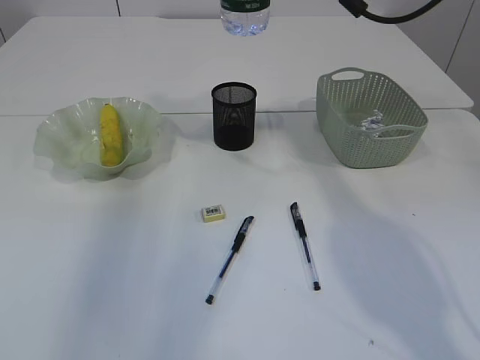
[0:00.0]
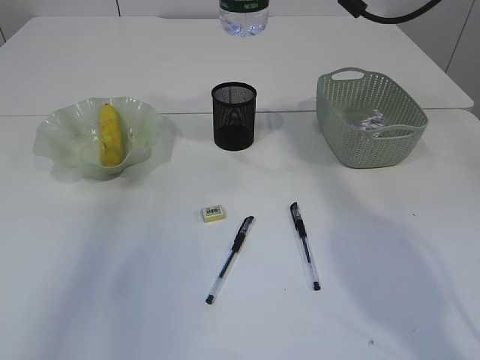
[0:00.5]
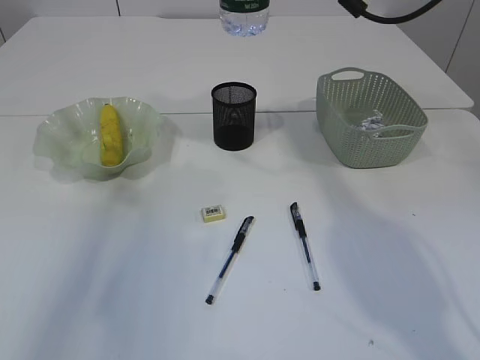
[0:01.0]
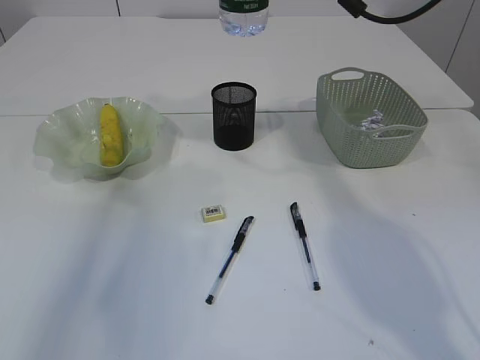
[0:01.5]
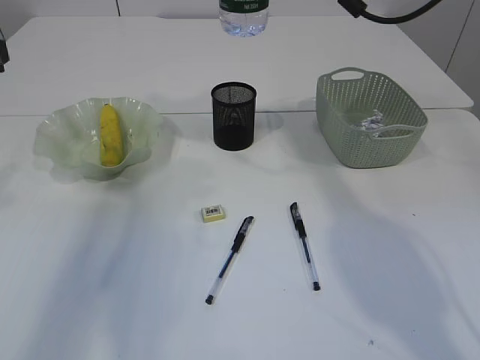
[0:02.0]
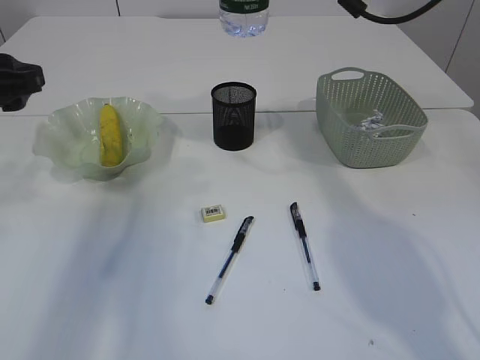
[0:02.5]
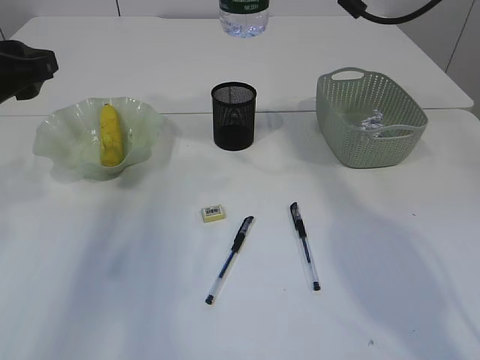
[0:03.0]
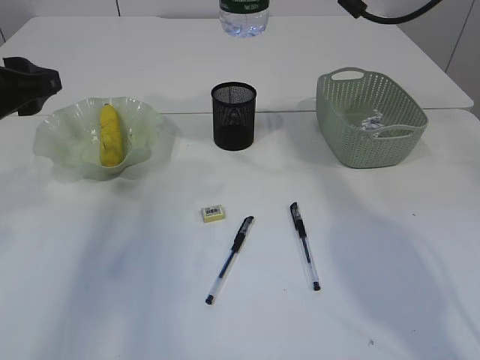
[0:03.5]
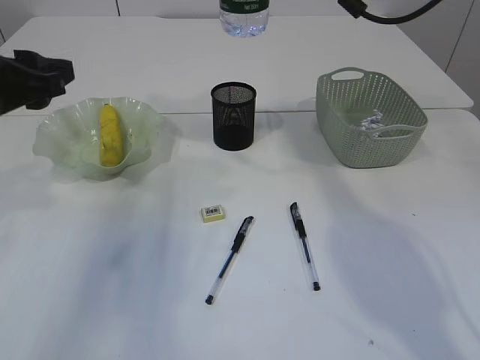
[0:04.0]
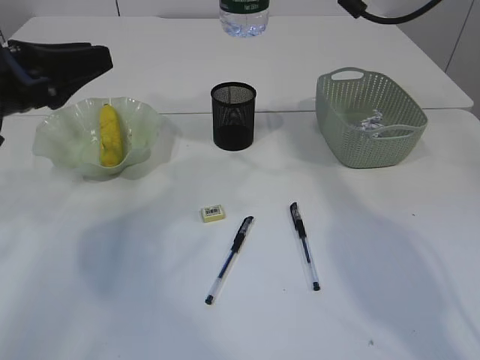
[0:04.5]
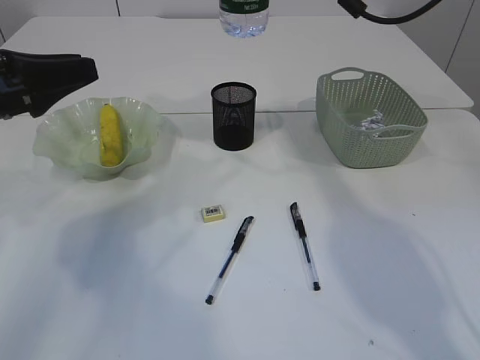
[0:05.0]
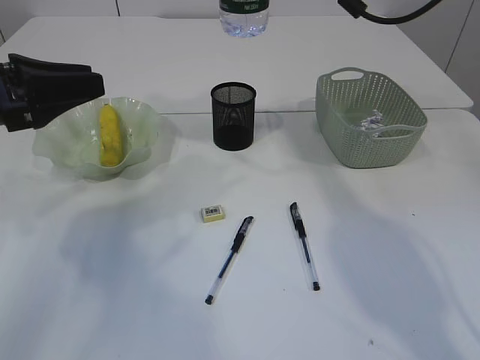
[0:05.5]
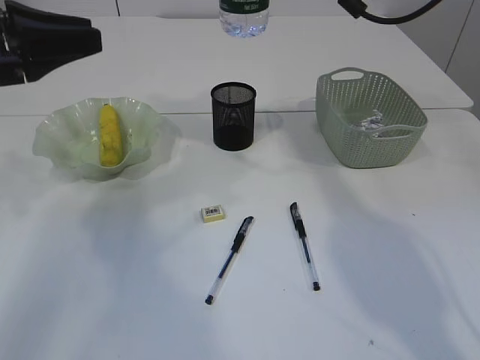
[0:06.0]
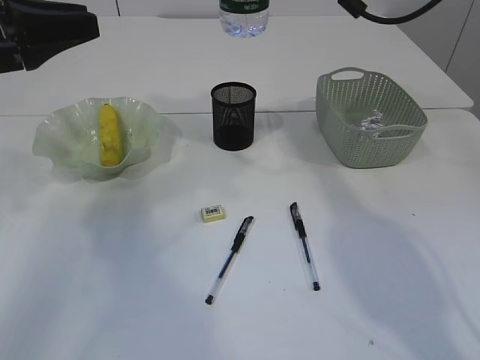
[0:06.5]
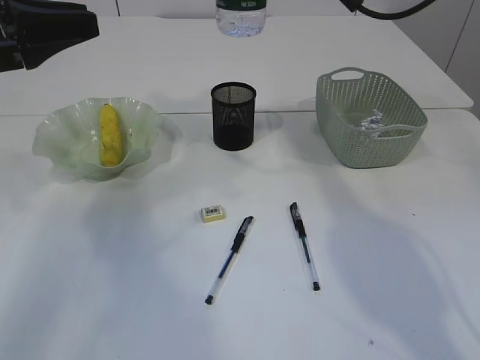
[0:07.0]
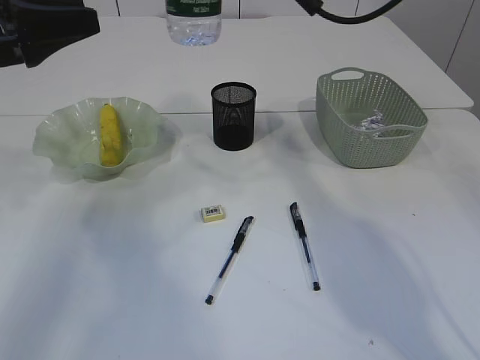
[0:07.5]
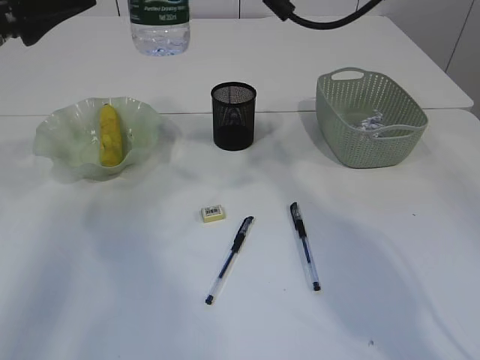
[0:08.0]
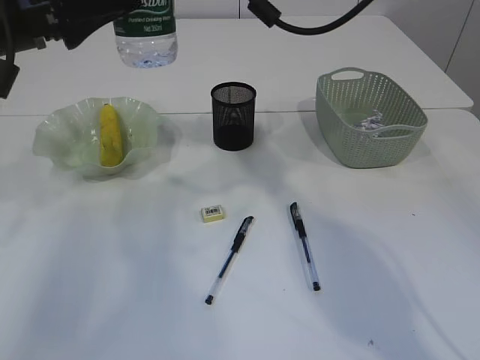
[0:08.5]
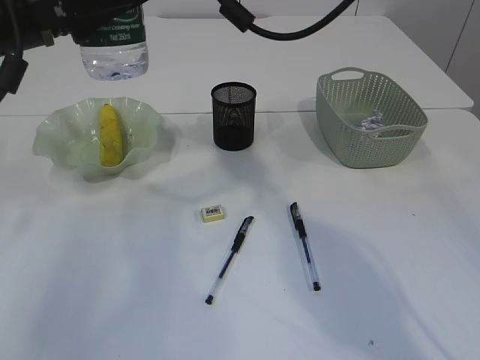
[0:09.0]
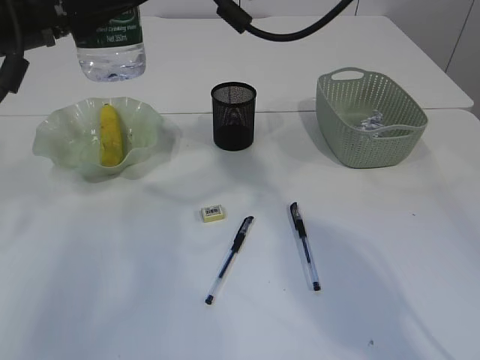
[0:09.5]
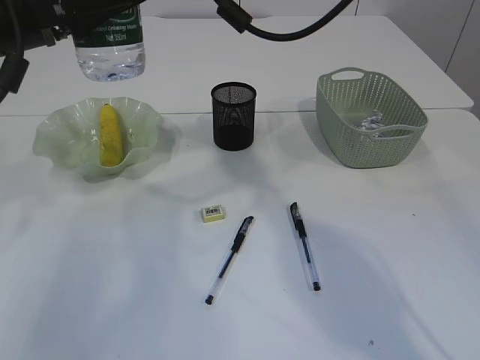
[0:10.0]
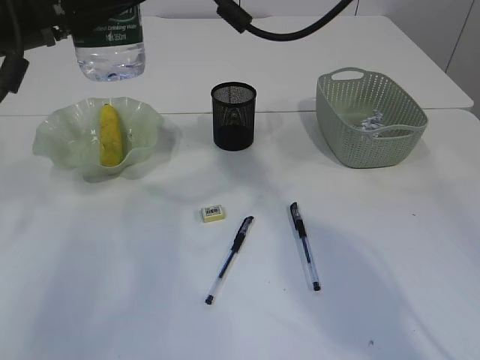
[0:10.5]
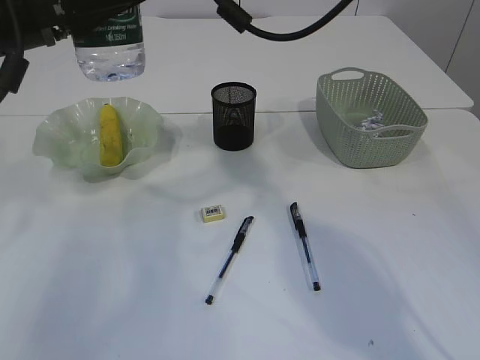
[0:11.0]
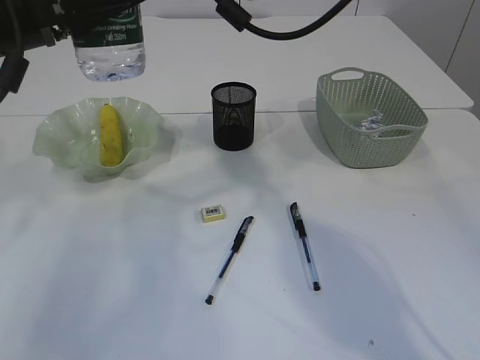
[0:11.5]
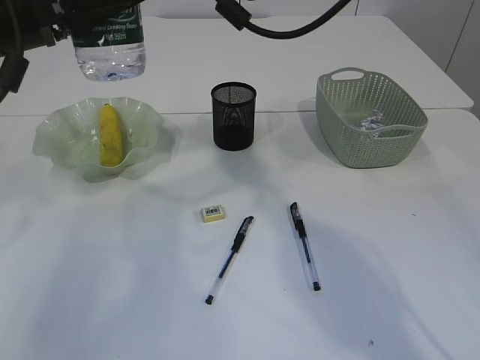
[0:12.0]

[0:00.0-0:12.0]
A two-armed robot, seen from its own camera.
0:02.0 to 0:04.0: The left gripper moves some 5 cm.
0:06.0 to 0:08.0: The right gripper heads to the left, covering about 10 cm; the left gripper opens.
0:08.0 to 0:10.0: The left gripper is displaced to the right by approximately 5 cm. Meanwhile the right gripper changes place by some 5 cm.
0:10.0 to 0:12.0: The two grippers keep their place.

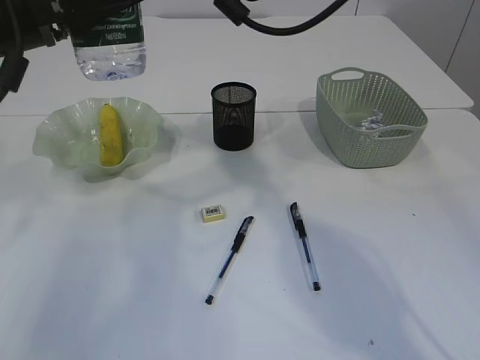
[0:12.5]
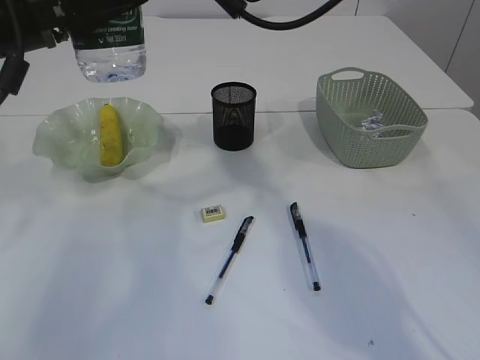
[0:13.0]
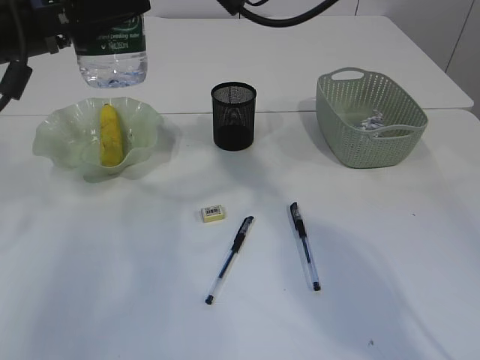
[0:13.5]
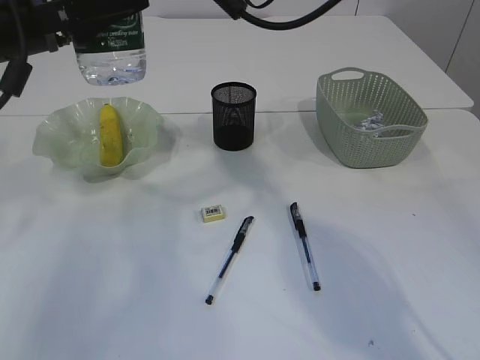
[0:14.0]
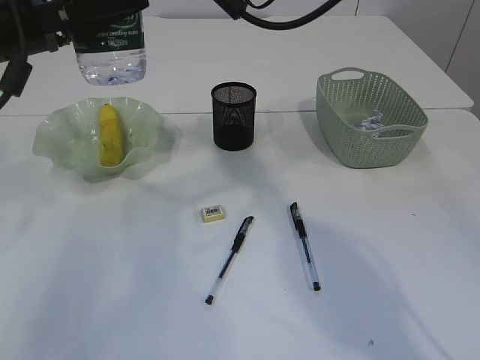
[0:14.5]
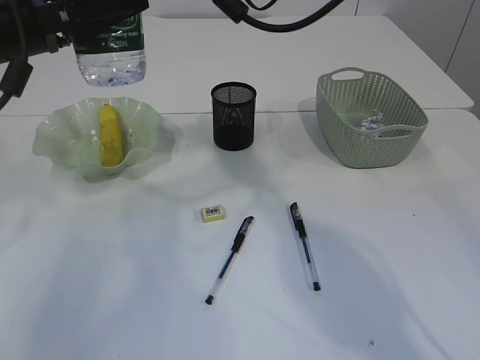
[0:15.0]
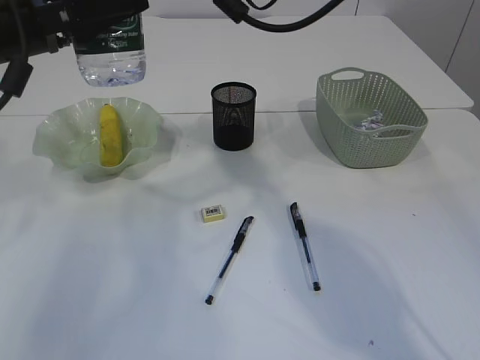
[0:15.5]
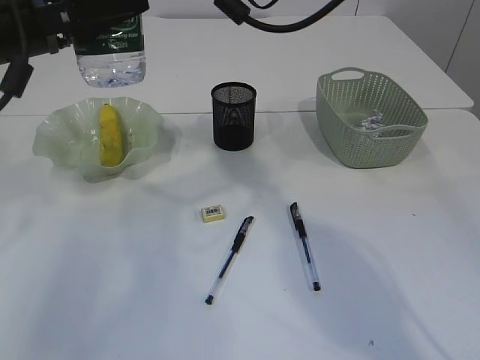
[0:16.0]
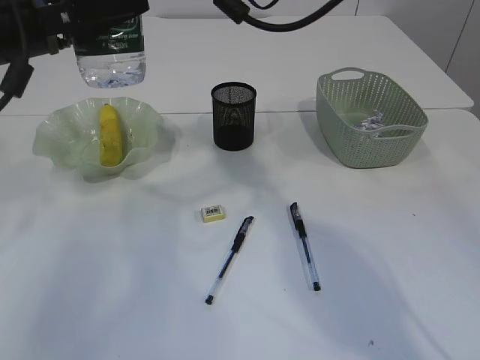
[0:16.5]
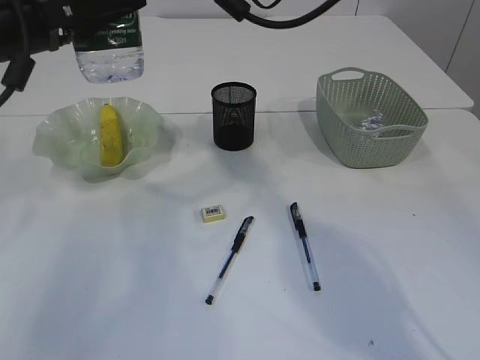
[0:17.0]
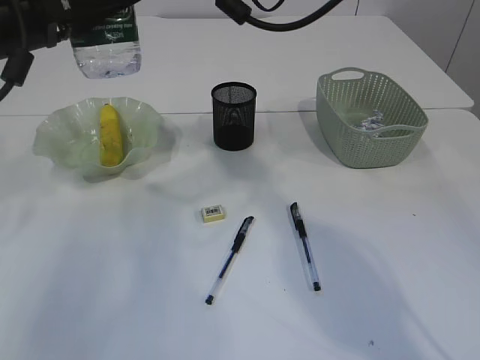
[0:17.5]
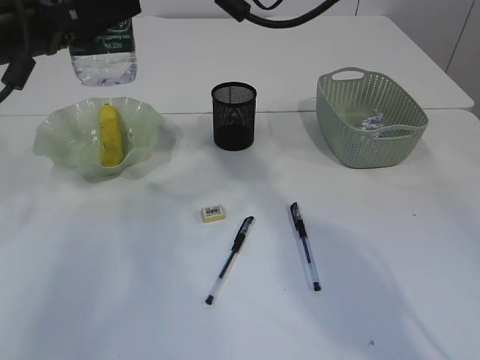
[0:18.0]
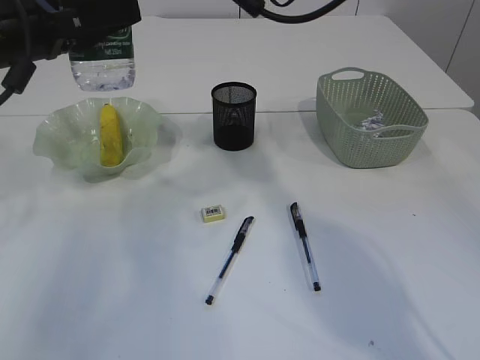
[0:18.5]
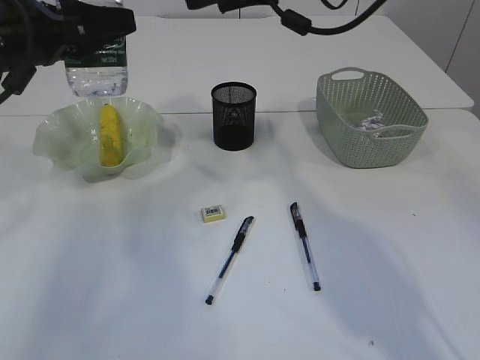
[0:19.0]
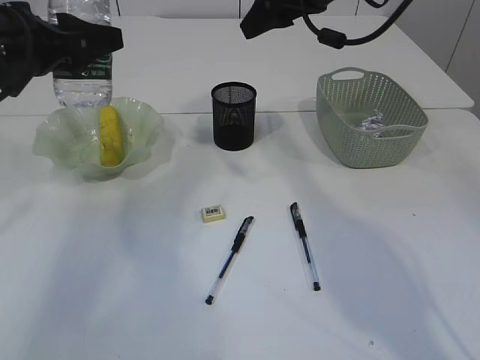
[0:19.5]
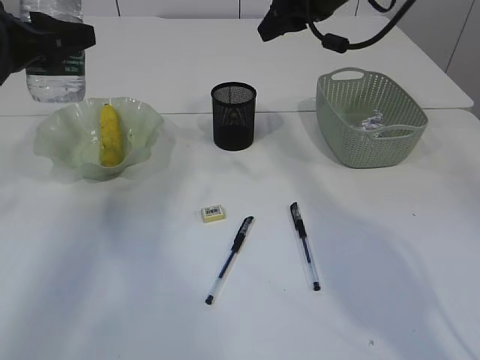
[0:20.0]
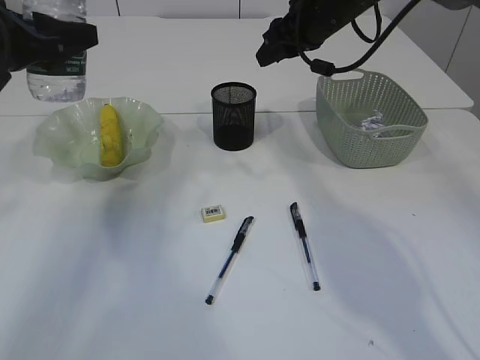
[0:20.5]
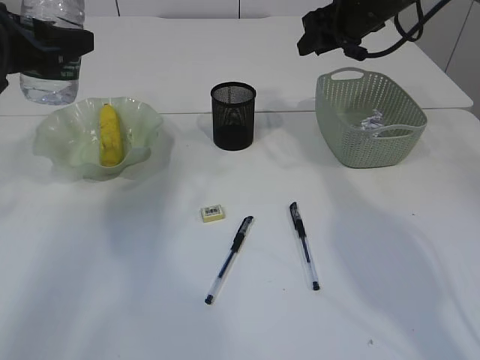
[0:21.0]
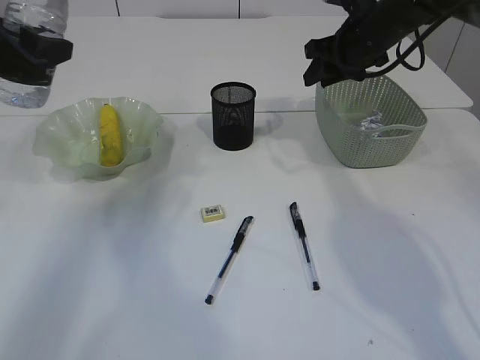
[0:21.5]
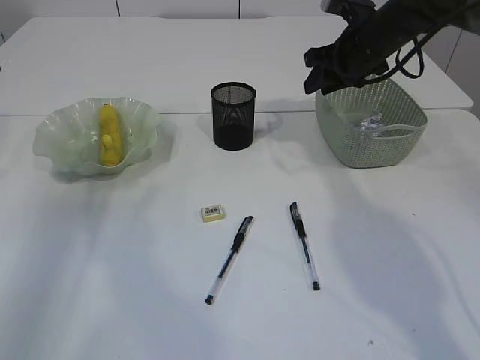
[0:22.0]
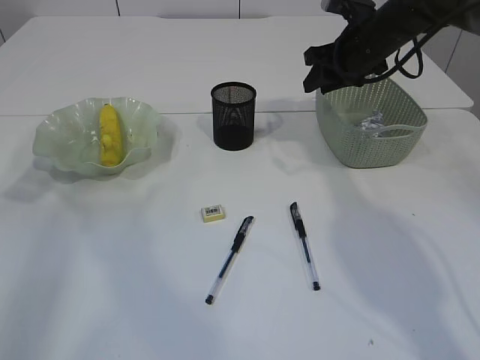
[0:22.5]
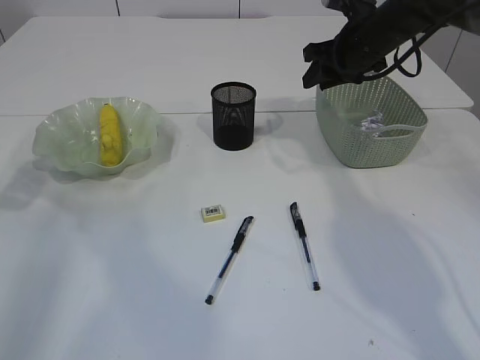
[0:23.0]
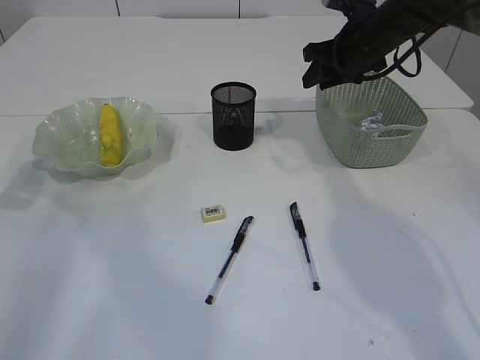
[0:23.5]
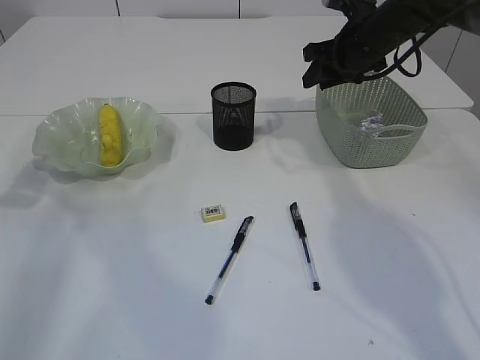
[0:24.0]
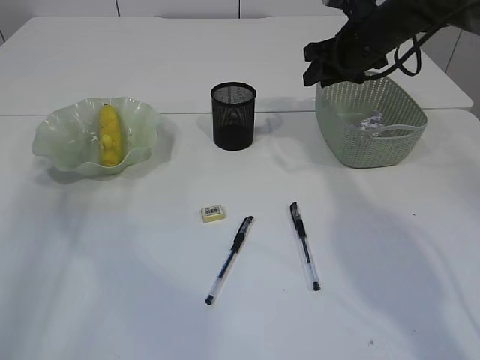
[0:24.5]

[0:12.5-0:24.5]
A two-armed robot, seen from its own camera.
Step, 0:12.5 to 0:18.5: transfer the bottle to the left arm.
0:12.5 to 0:14.5: The grippers move only a little.
0:14.5 to 0:16.5: The two grippers keep their place.
0:16.5 to 0:18.5: The grippers make only small movements.
0:18.5 to 0:20.5: The right gripper shifts roughly 15 cm to the right, downward and forward, and closes.
0:20.5 to 0:22.5: The right gripper heads to the right, covering about 5 cm, while the left gripper shifts approximately 10 cm to the left.
0:22.5 to 0:24.5: The grippers make only small movements.

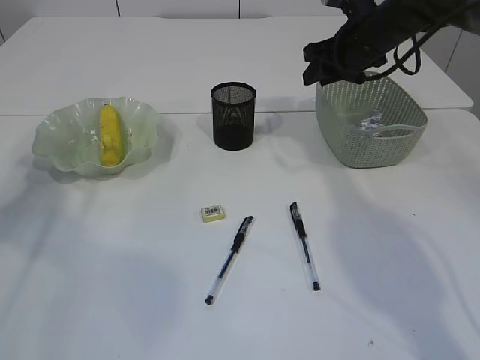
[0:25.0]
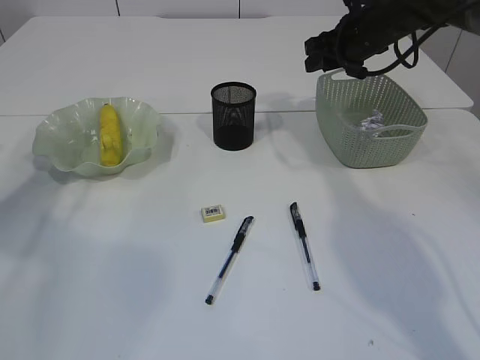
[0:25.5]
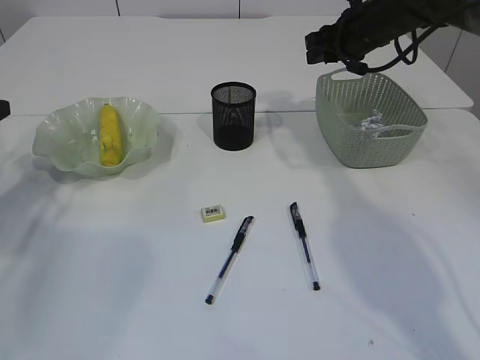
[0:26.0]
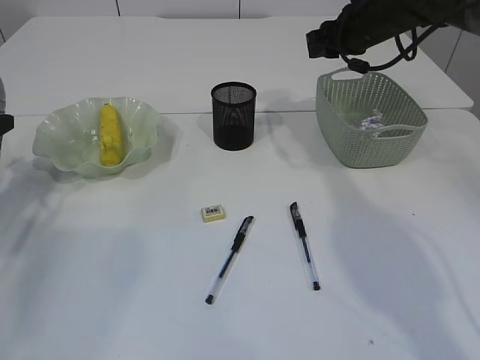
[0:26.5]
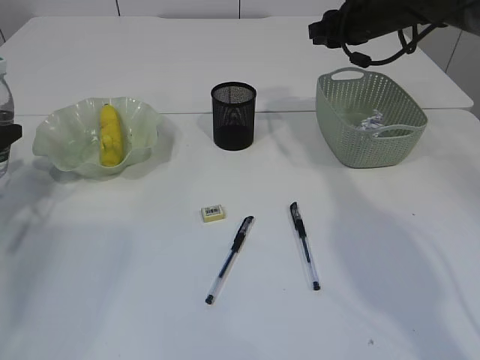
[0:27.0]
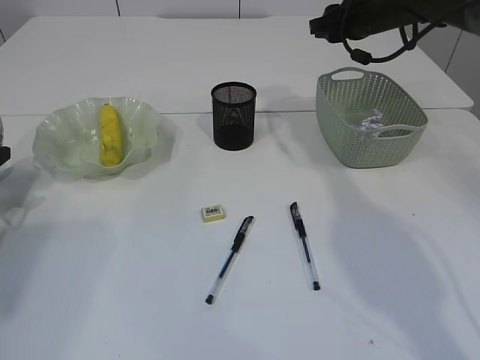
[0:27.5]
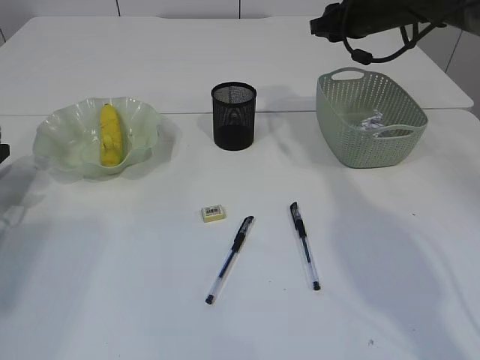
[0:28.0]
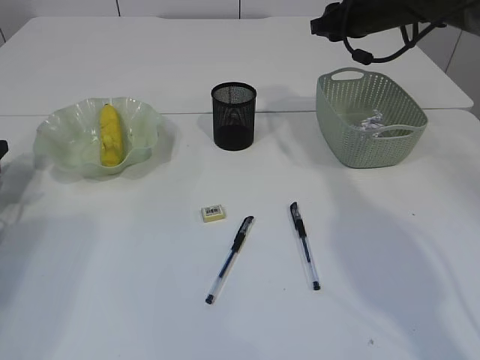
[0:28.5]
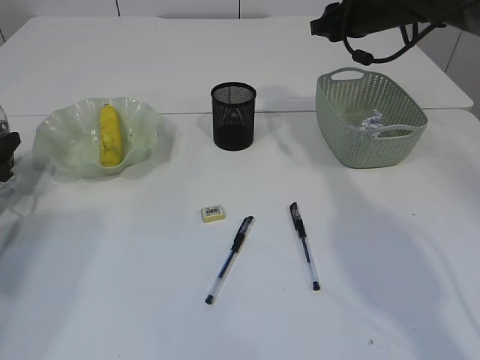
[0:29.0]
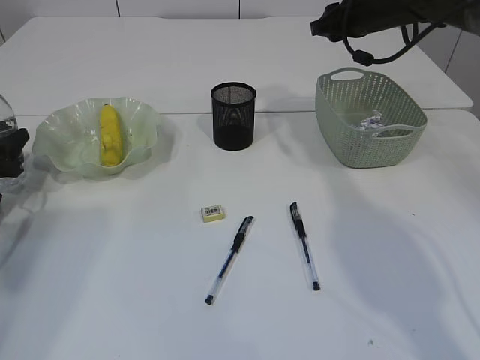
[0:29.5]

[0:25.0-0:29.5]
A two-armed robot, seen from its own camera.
0:25.0 to 0:27.0: The left gripper travels downward by approximately 10 cm.
0:27.0 to 0:29.5: The left gripper heads downward, covering roughly 10 cm.
